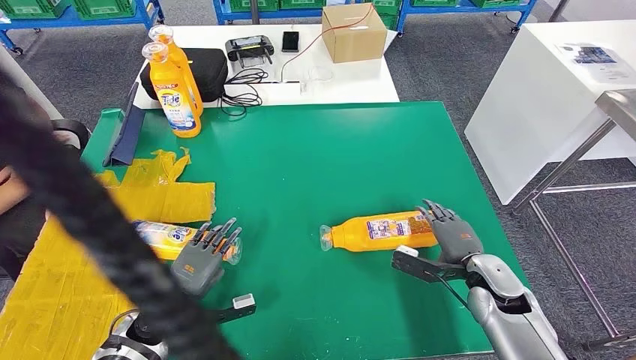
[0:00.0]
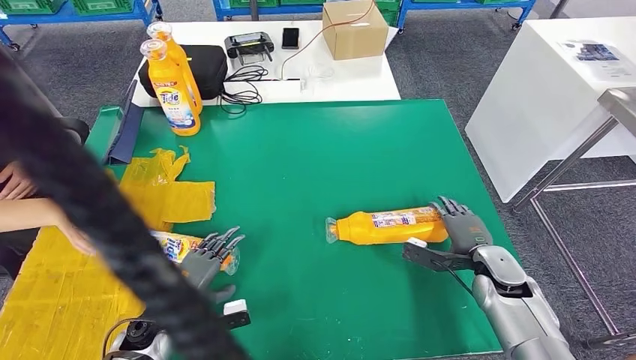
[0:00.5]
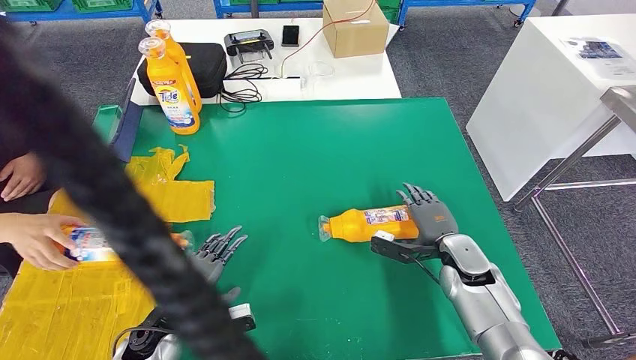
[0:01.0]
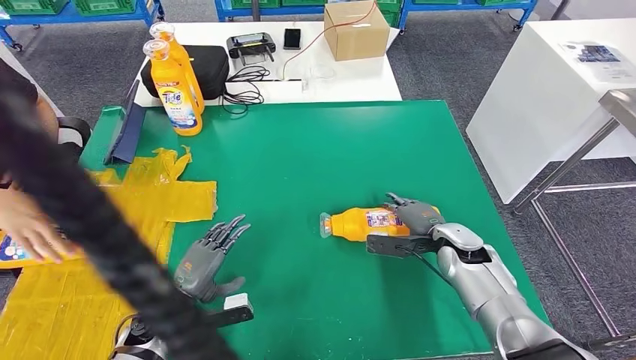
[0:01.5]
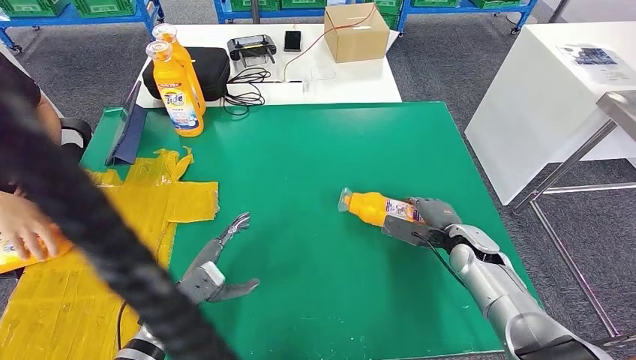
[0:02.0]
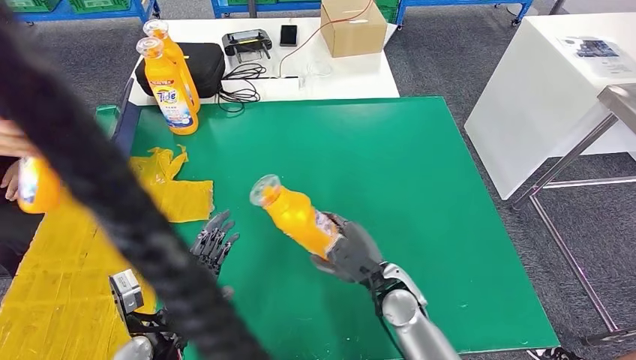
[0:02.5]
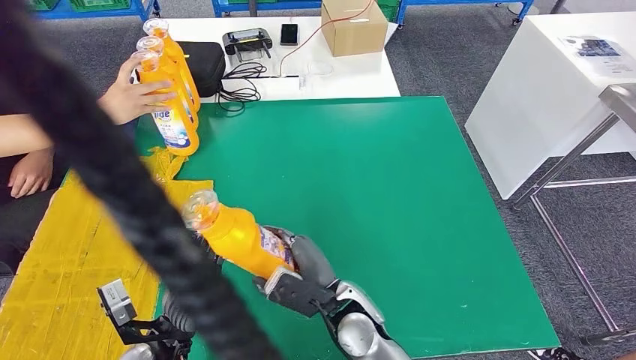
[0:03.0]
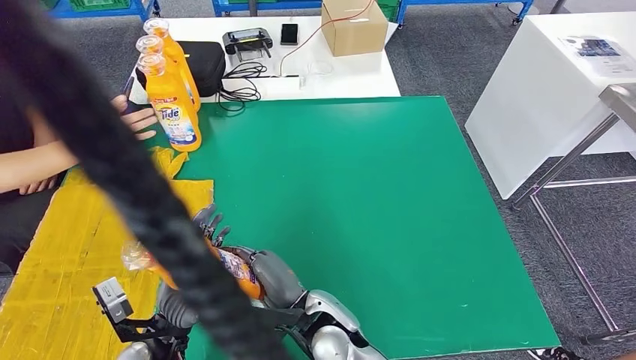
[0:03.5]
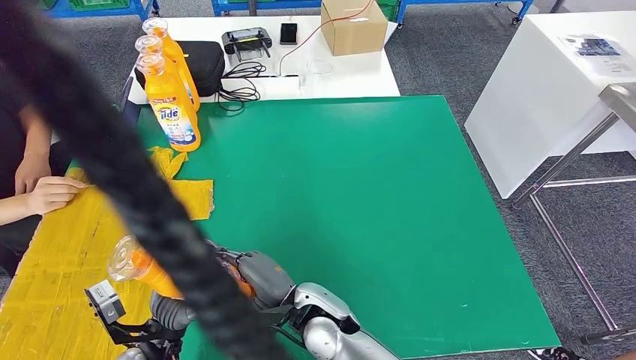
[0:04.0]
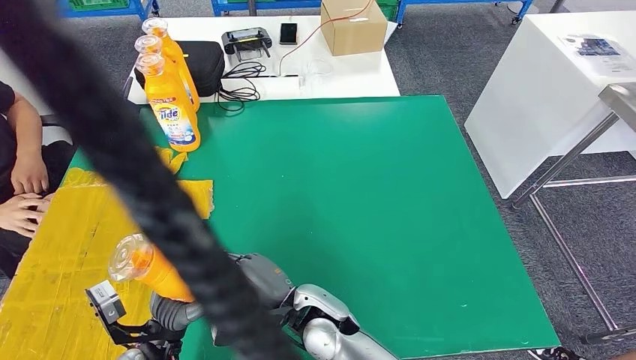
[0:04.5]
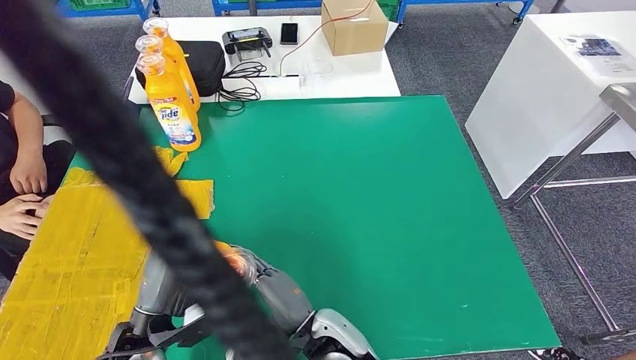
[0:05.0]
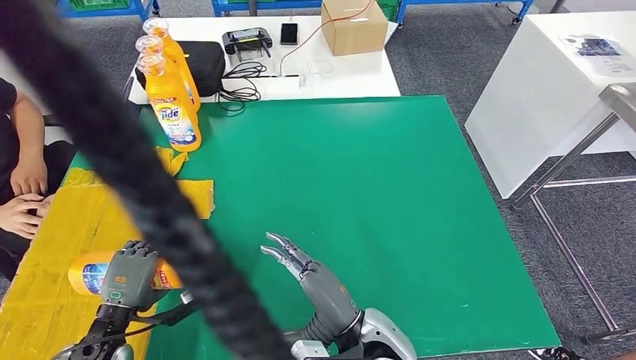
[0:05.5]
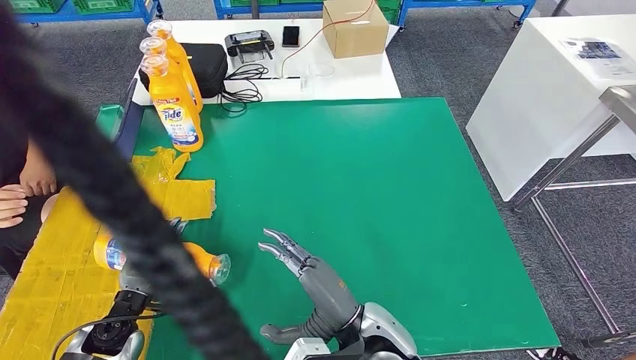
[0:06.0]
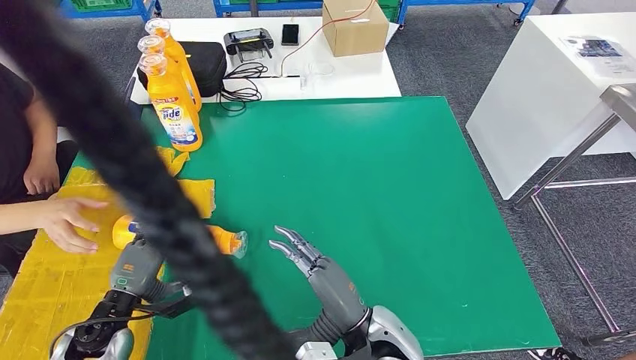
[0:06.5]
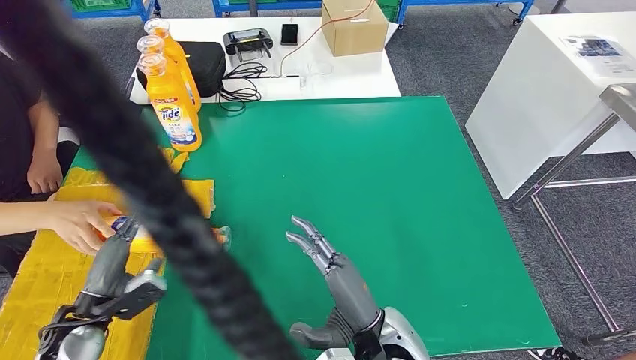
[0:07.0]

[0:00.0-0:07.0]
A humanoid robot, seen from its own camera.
Step, 0:01.5 to 0:03.5: Pick up the bottle from the table.
Step, 0:04.0 to 0:07.0: Flip the bottle to face forward.
0:00.0 to 0:02.0: The right hand is displaced forward by some 5 cm.
0:05.0 to 0:07.0: The right hand is displaced to the right by about 10 cm. The left hand shifts about 10 cm to the left.
